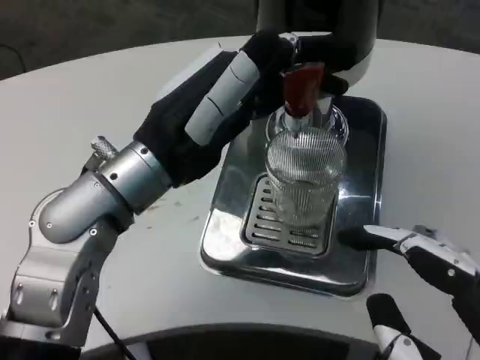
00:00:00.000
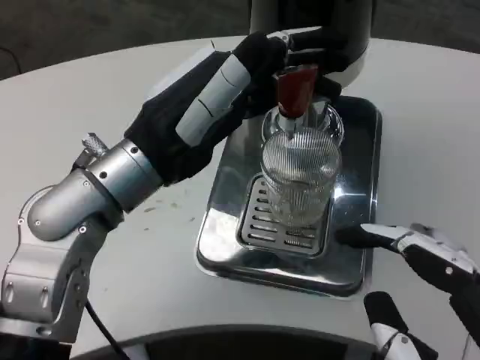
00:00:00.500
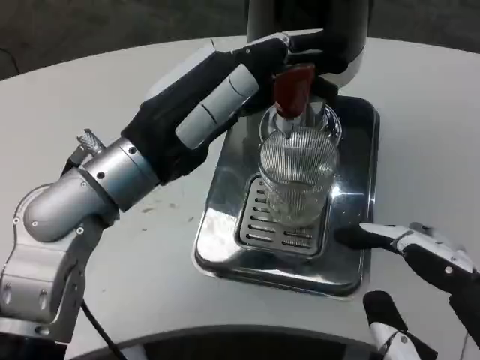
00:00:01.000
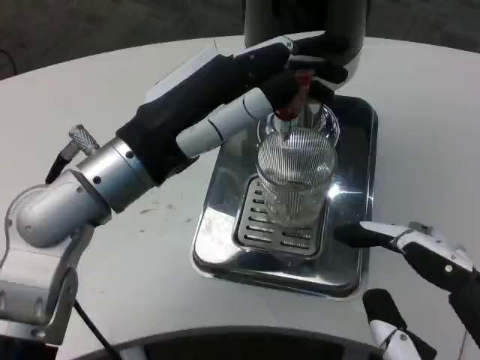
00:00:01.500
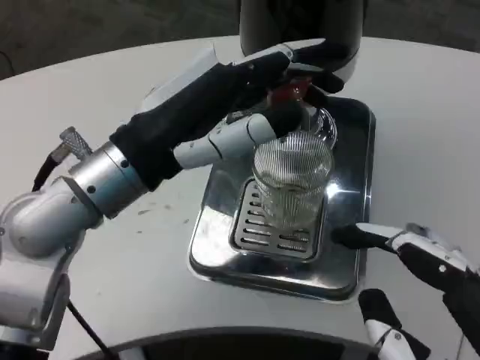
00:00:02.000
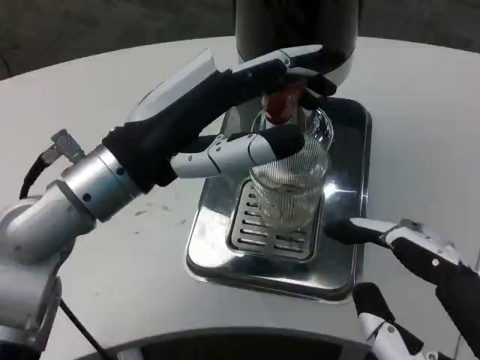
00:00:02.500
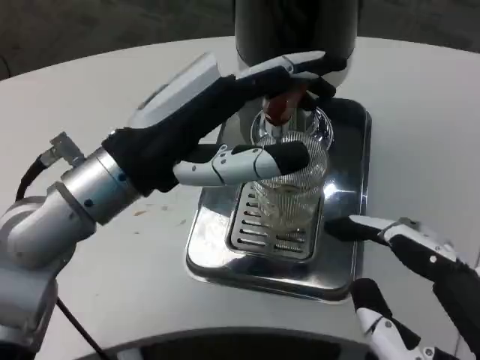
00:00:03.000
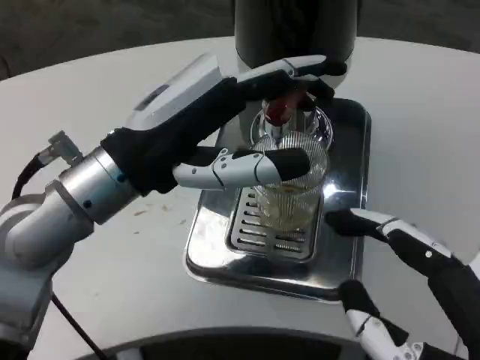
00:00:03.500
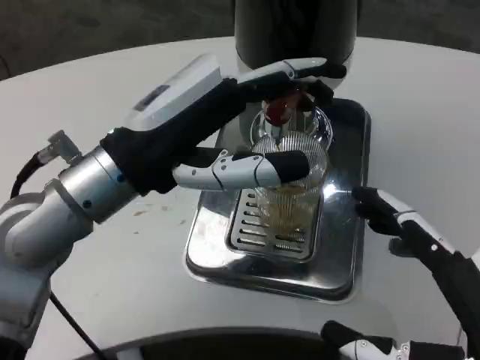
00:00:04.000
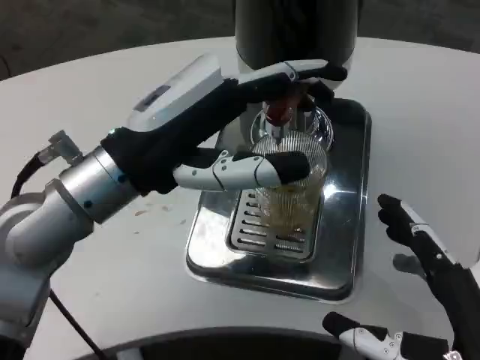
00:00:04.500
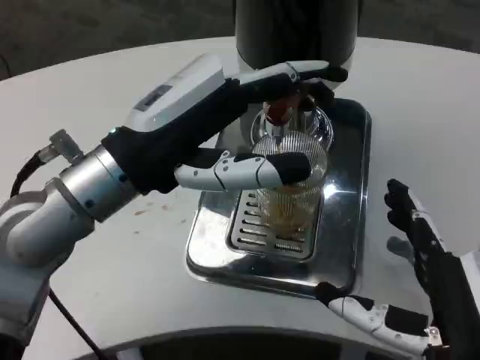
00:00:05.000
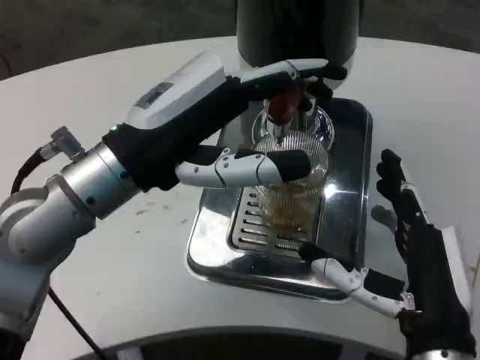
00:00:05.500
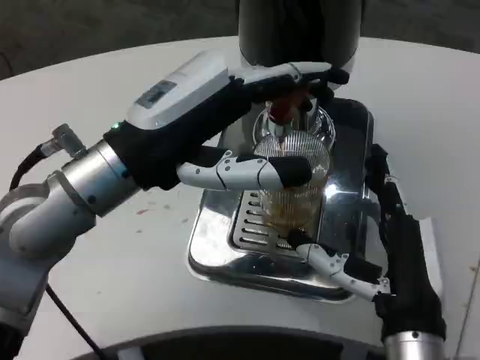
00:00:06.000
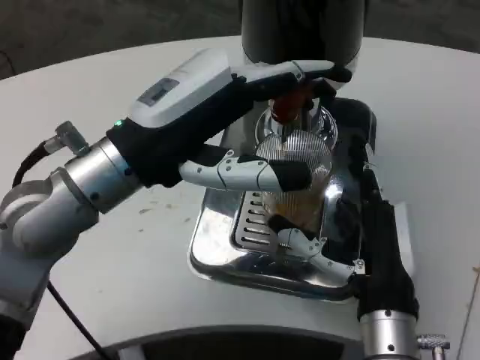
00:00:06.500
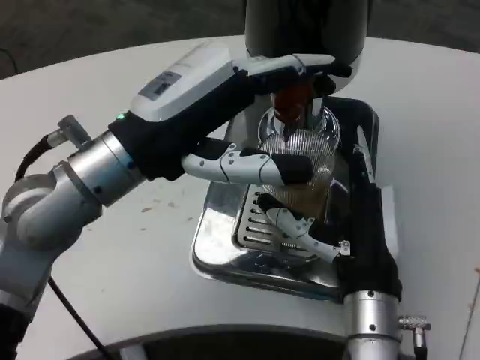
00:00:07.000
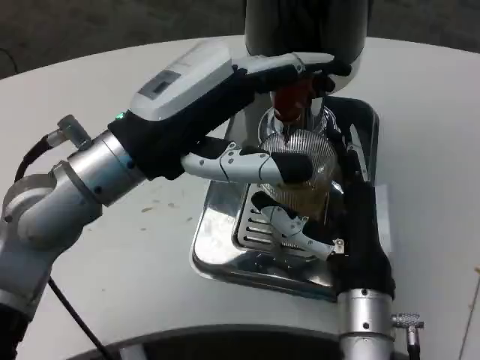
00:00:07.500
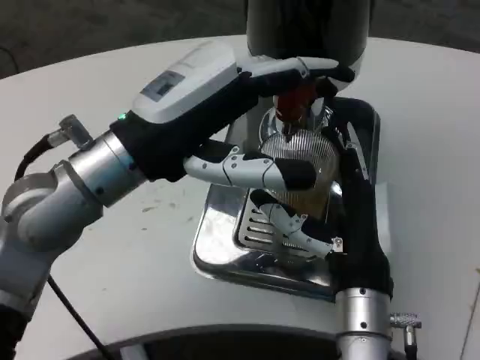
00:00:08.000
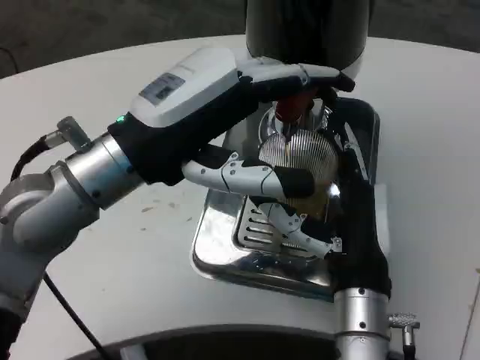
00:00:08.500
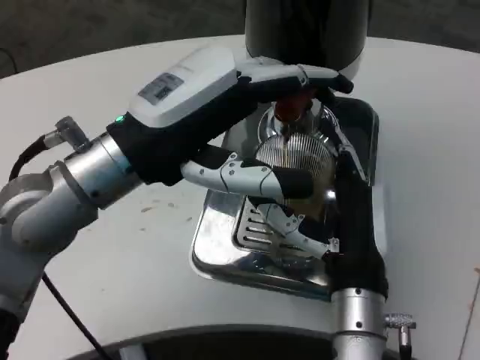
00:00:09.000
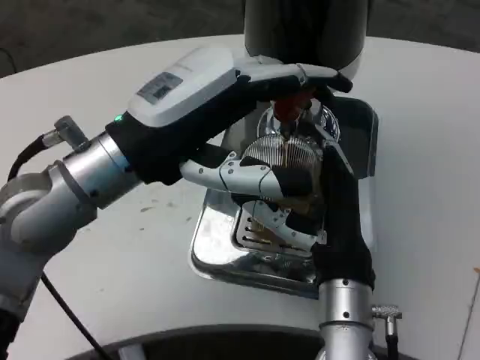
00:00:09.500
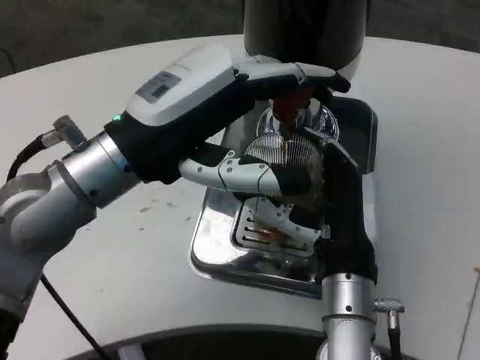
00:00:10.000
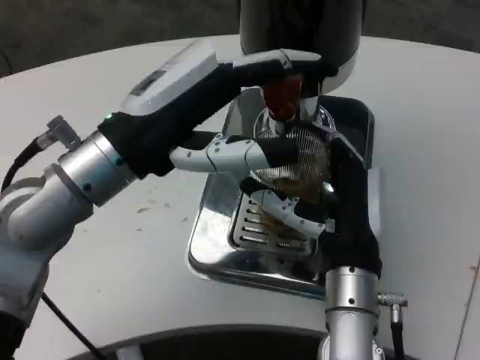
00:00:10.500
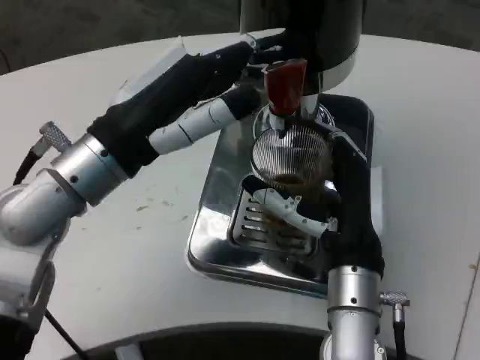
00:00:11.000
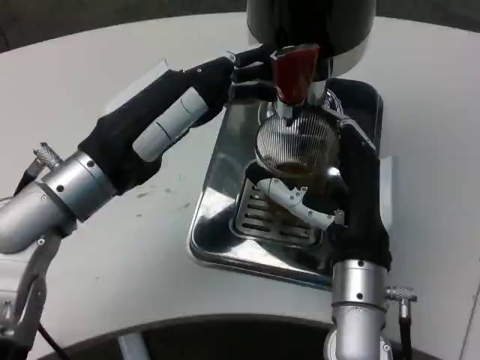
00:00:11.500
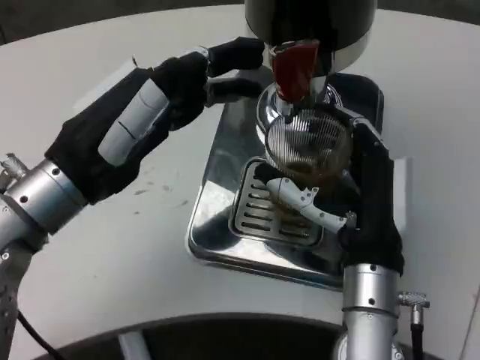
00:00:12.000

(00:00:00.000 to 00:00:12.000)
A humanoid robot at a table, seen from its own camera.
Task of the whole recording: Grasp the cup under the faucet to collect the drink, then remove the cup.
00:00:04.000 - 00:00:06.000: The right hand moves forward, downward and to the left, approximately 15 cm.
00:00:06.000 - 00:00:08.000: The right hand moves roughly 5 cm.
00:00:08.000 - 00:00:10.000: The hands move only a little.

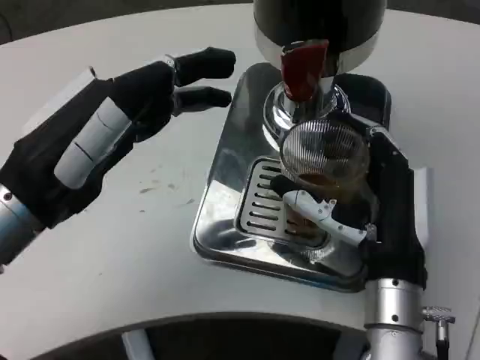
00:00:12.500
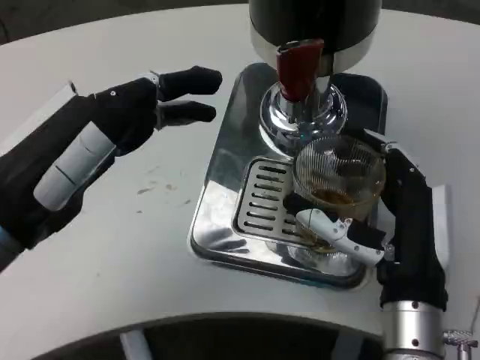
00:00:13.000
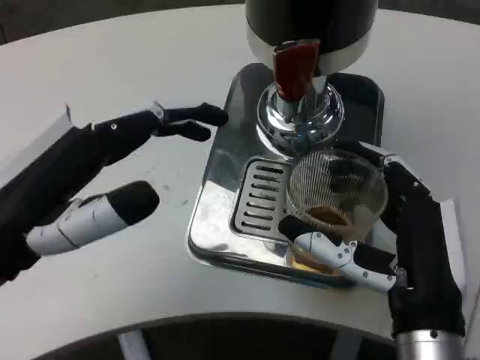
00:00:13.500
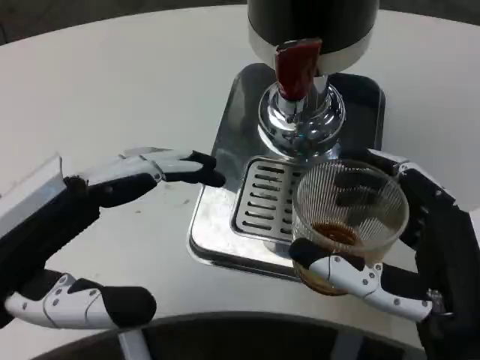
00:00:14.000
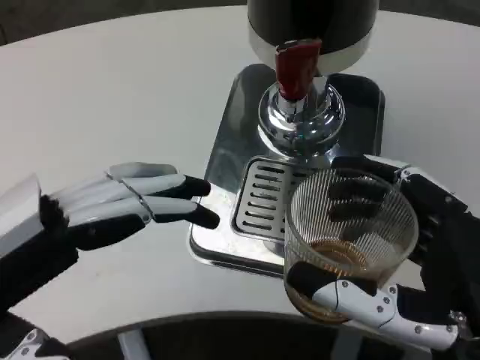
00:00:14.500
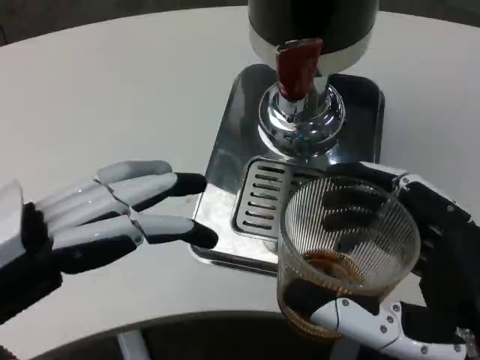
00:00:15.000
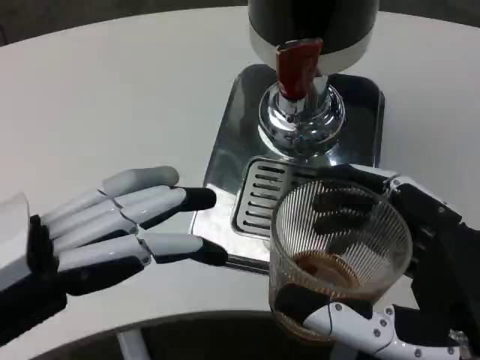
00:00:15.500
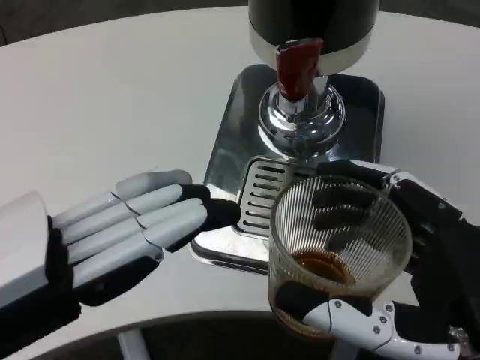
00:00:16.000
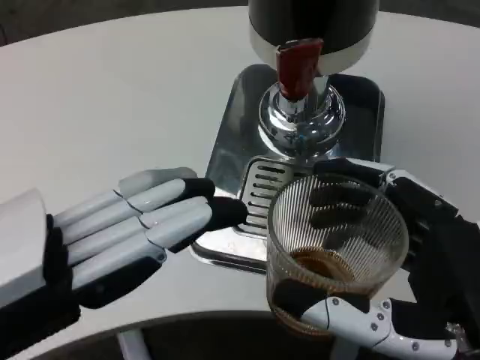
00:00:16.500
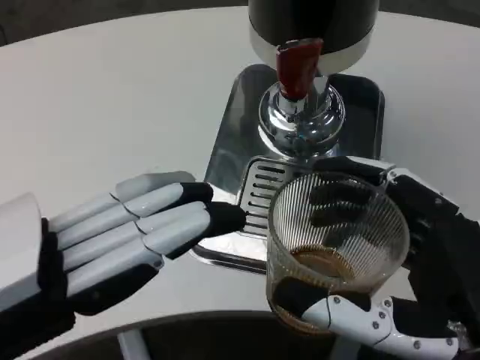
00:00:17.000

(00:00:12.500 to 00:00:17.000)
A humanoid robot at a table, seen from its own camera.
Task of the whole recording: Grasp the cup under the faucet to collect the drink, then remove the cup.
00:00:12.500 - 00:00:14.500: The right hand moves backward, approximately 15 cm, while the left hand moves backward, some 10 cm.

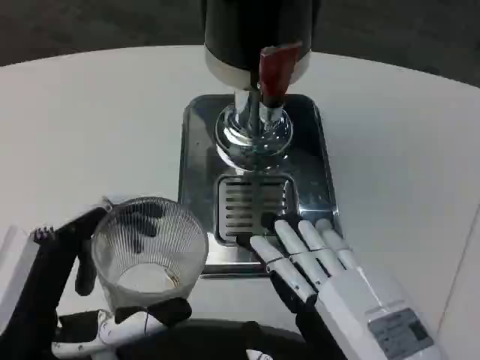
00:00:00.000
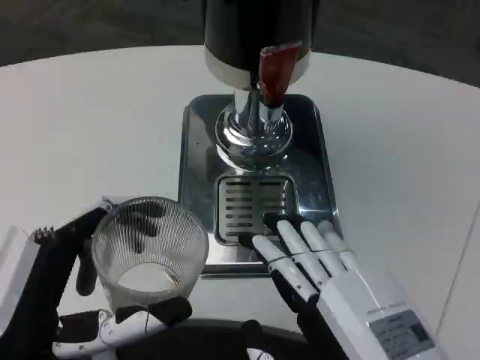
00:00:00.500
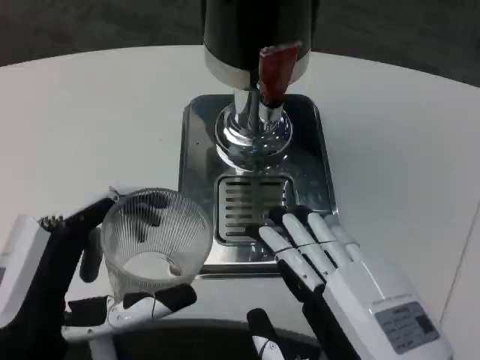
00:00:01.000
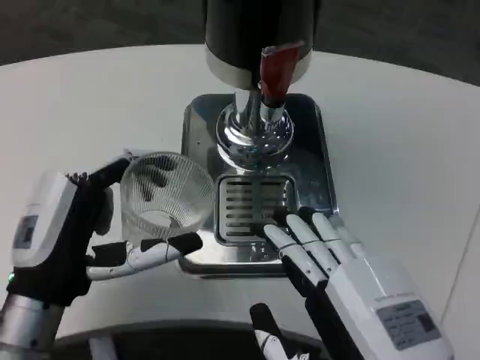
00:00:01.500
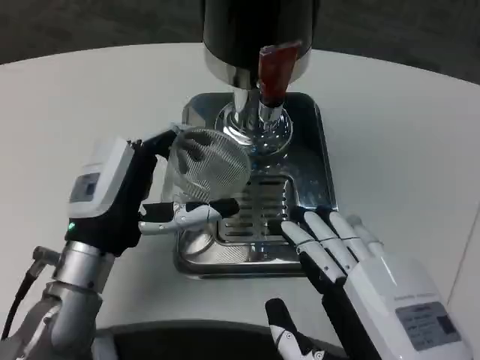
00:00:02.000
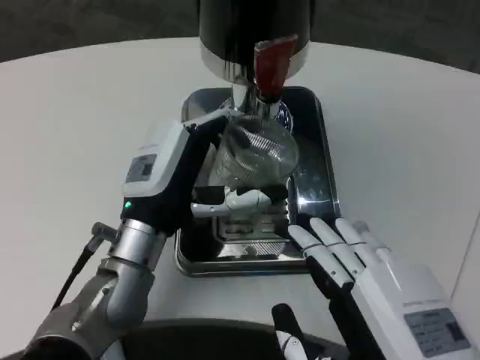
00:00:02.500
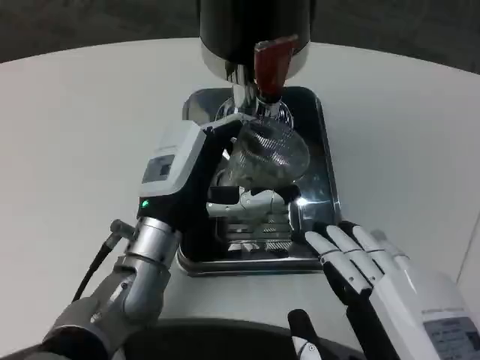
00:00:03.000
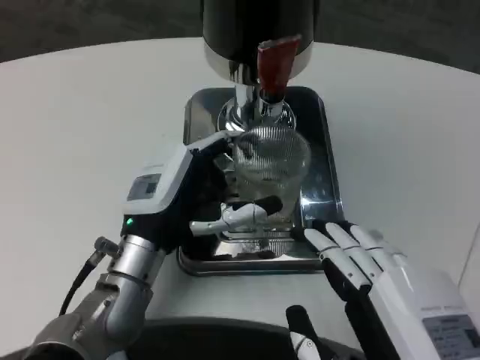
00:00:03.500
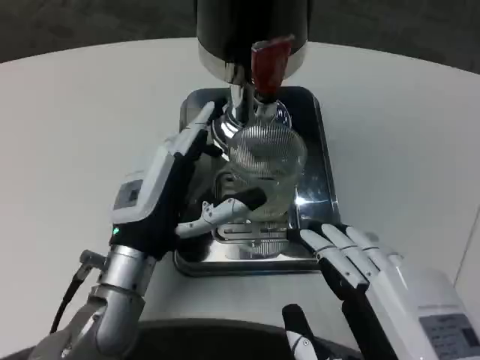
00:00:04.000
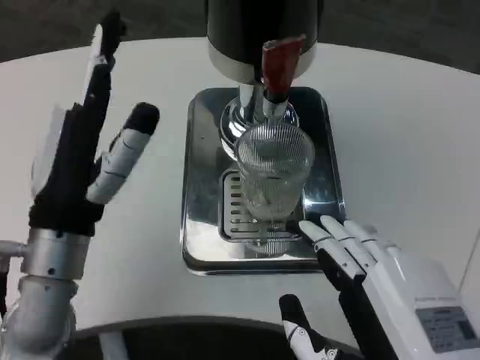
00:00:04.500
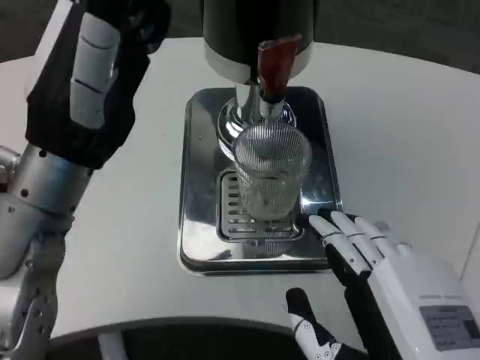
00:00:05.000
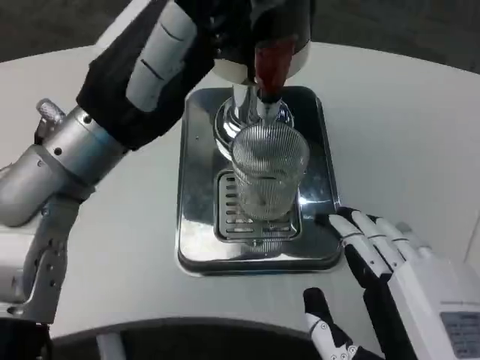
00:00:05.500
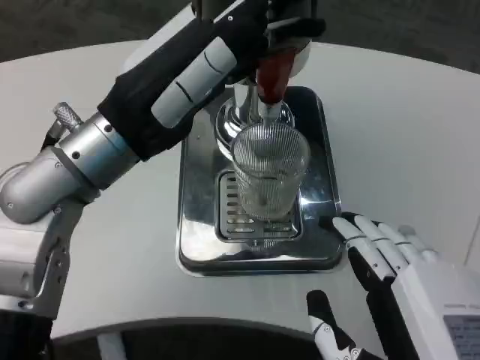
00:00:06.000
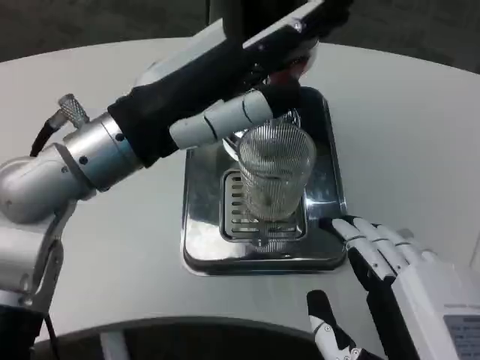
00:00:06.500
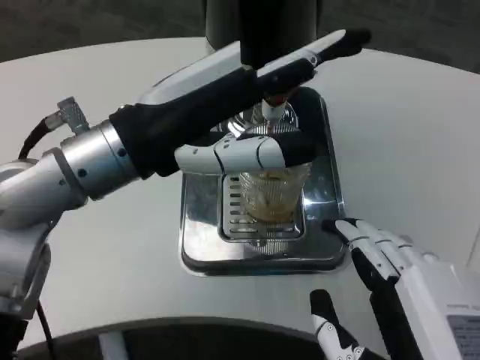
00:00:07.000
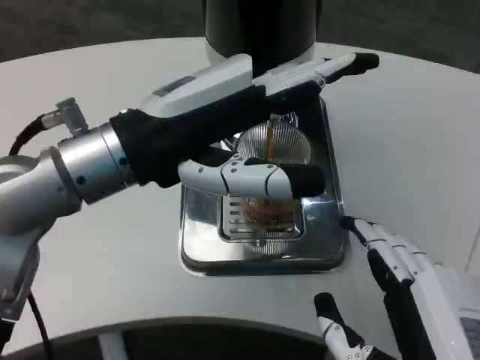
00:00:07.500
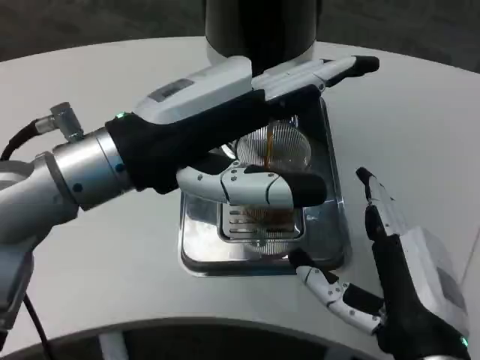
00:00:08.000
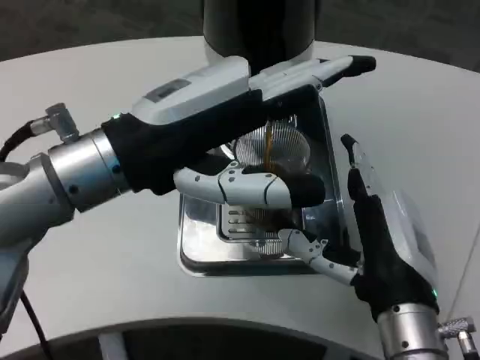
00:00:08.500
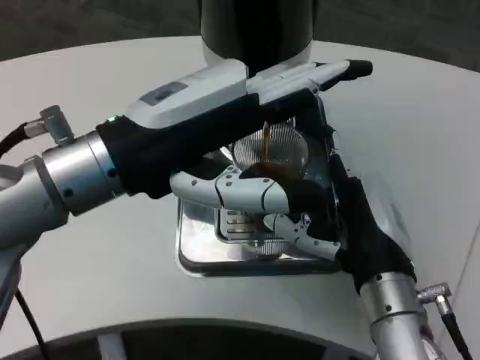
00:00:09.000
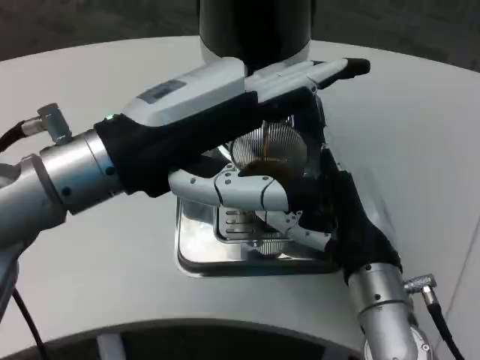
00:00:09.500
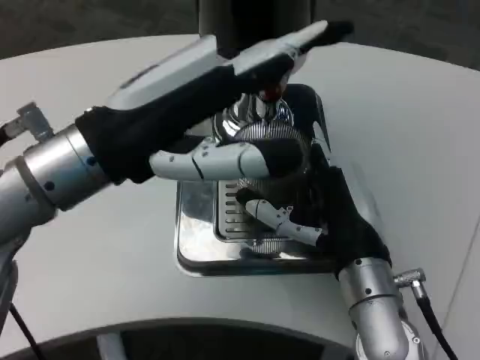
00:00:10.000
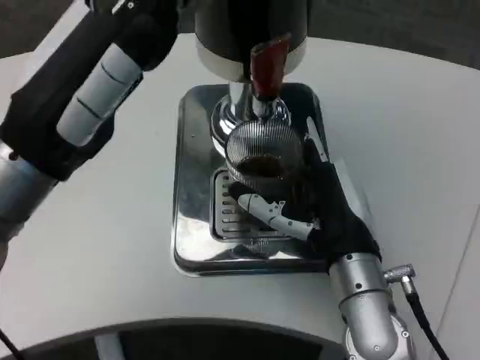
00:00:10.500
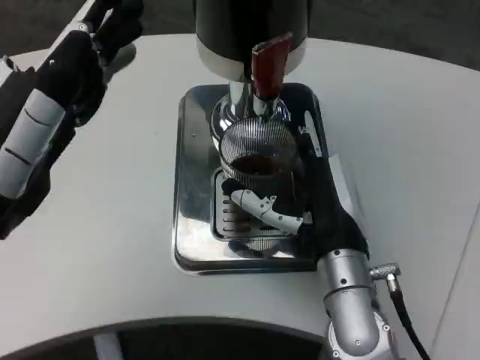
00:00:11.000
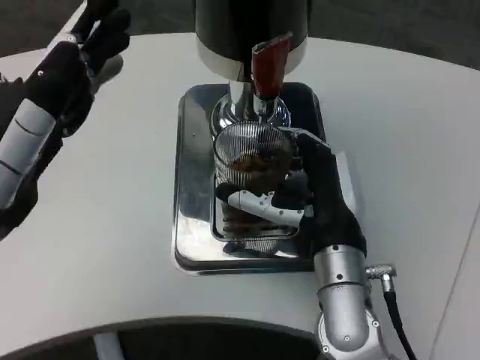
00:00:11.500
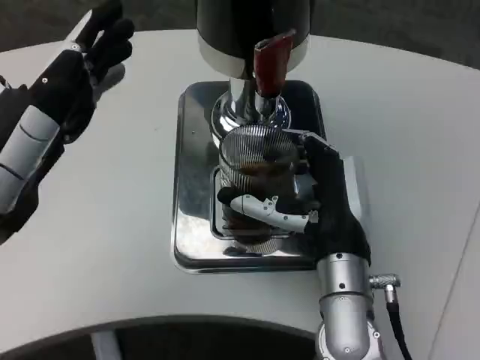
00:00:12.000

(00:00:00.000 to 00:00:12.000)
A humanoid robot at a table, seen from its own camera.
Task of the whole recording: Grasp the cup under the faucet to collect the drink, then remove the cup.
00:00:00.000 - 00:00:02.000: The left hand is displaced forward by roughly 15 cm.
00:00:04.000 - 00:00:06.000: The left hand heads upward, covering about 15 cm.
00:00:06.000 - 00:00:08.000: The right hand moves forward, roughly 10 cm.
00:00:08.000 - 00:00:10.000: The right hand heads forward, covering roughly 10 cm.
00:00:10.000 - 00:00:12.000: The left hand moves to the left, backward and downward, some 10 cm.
